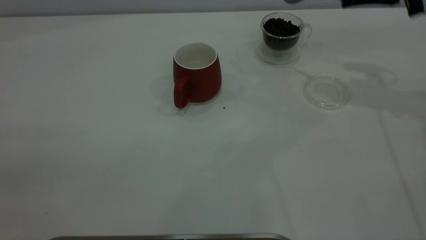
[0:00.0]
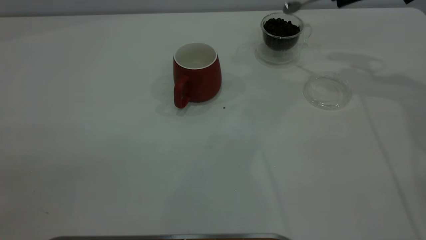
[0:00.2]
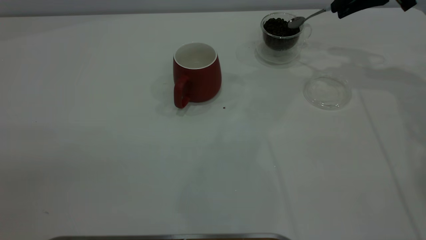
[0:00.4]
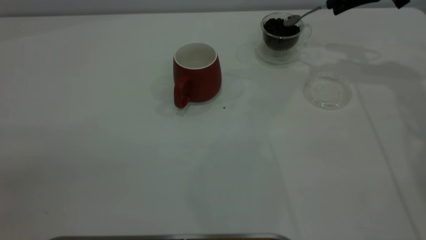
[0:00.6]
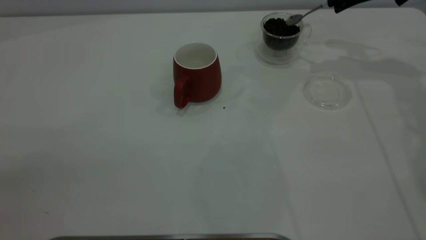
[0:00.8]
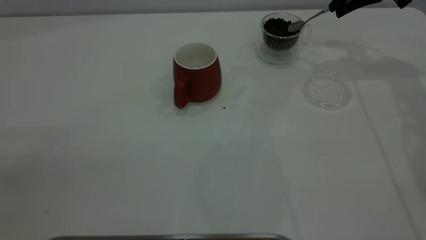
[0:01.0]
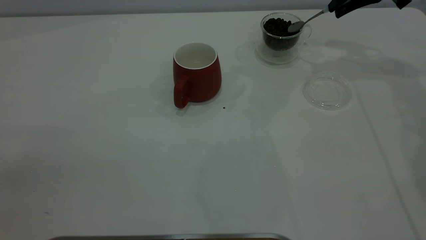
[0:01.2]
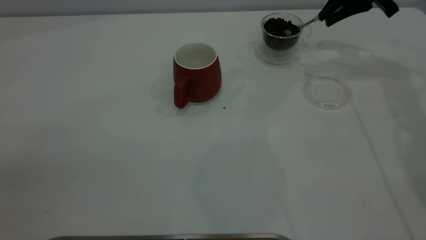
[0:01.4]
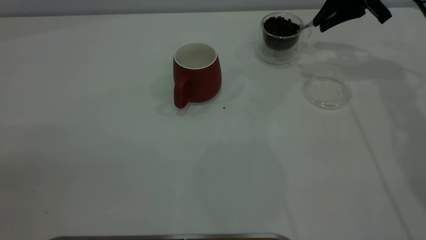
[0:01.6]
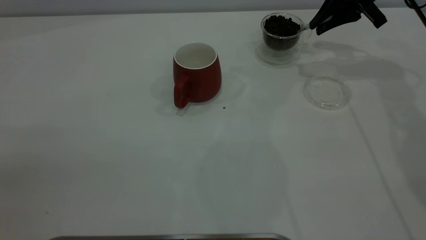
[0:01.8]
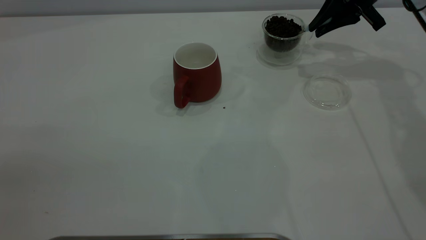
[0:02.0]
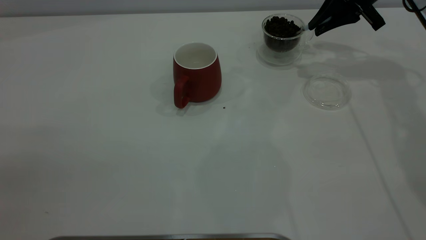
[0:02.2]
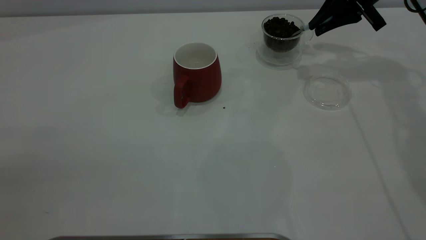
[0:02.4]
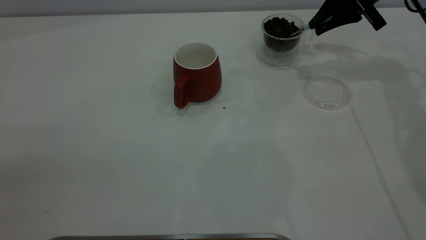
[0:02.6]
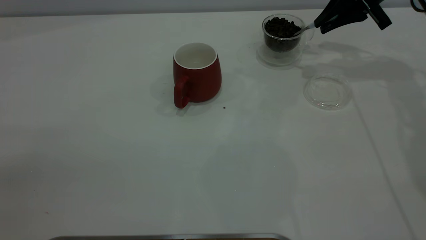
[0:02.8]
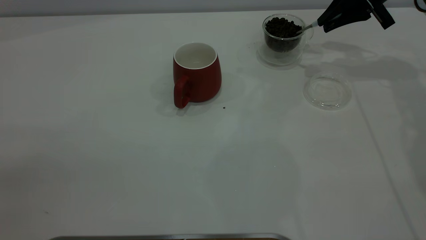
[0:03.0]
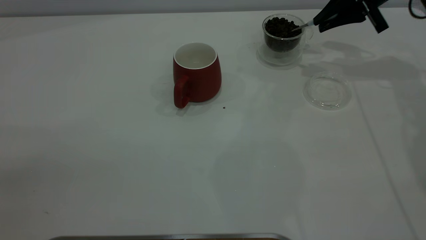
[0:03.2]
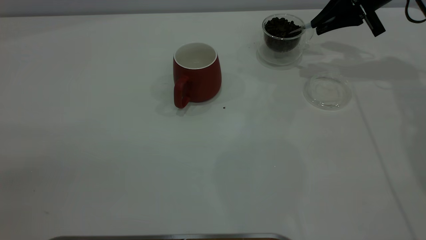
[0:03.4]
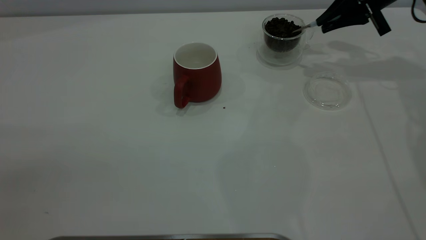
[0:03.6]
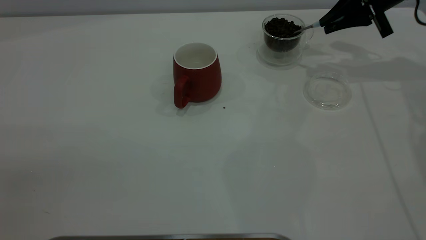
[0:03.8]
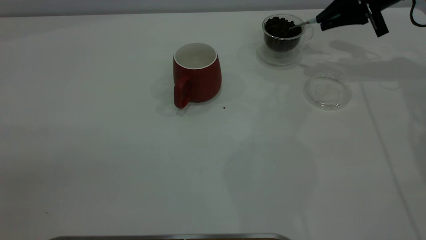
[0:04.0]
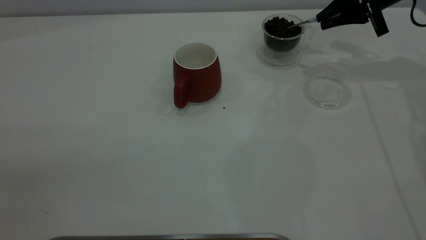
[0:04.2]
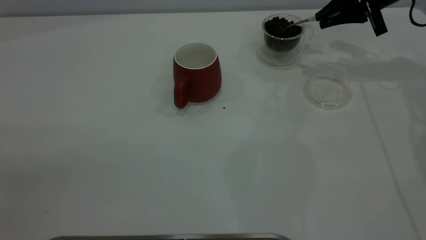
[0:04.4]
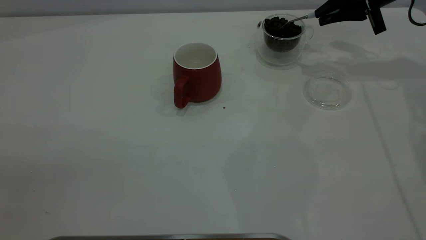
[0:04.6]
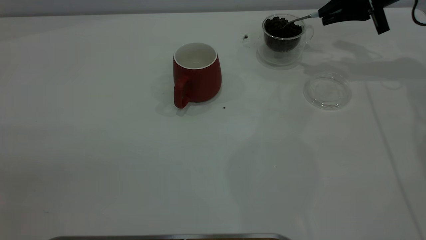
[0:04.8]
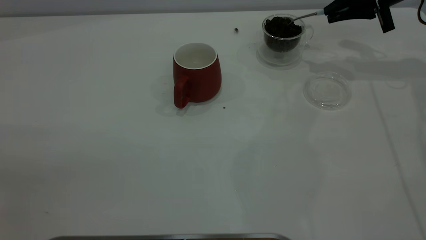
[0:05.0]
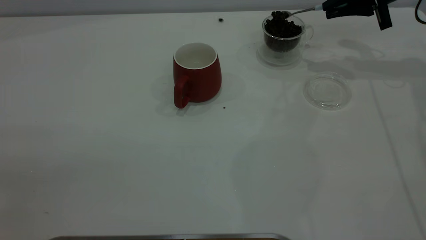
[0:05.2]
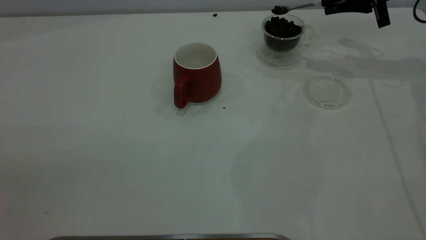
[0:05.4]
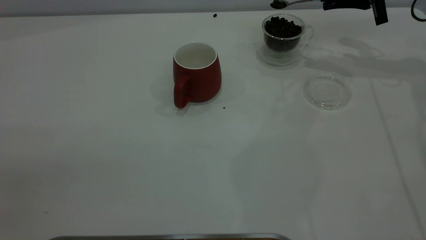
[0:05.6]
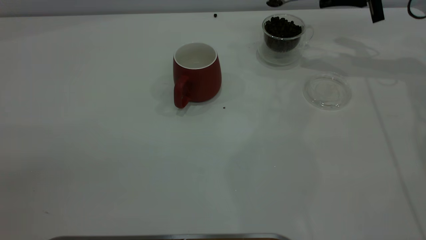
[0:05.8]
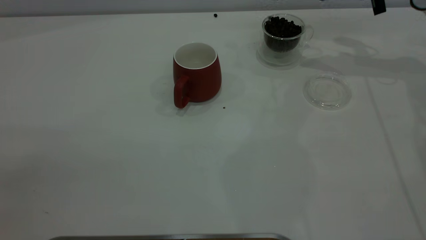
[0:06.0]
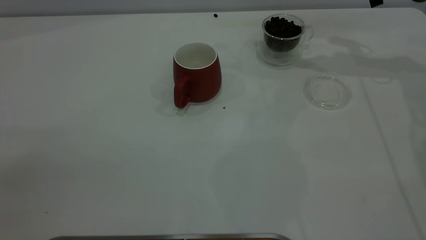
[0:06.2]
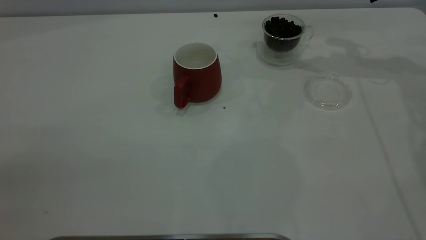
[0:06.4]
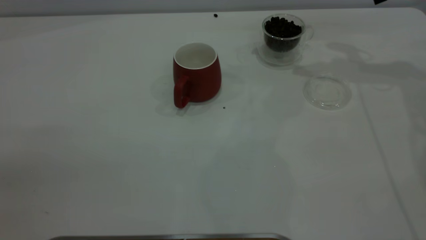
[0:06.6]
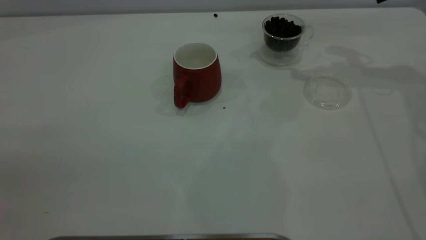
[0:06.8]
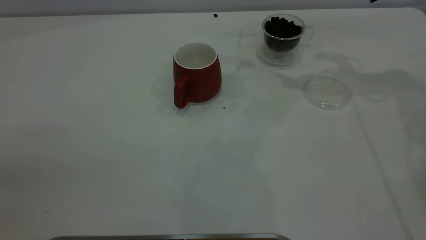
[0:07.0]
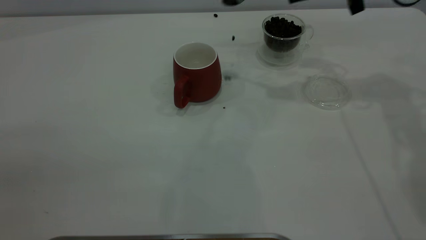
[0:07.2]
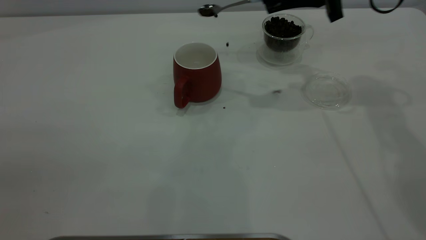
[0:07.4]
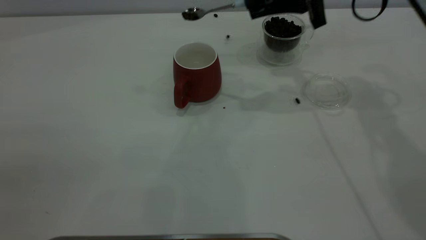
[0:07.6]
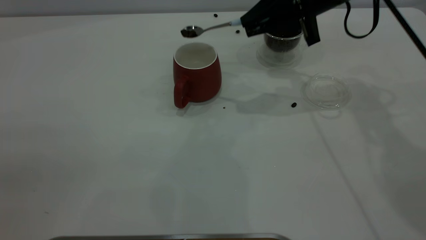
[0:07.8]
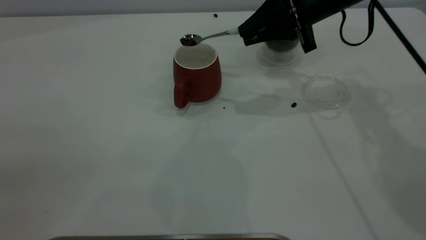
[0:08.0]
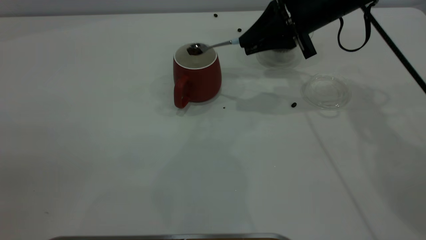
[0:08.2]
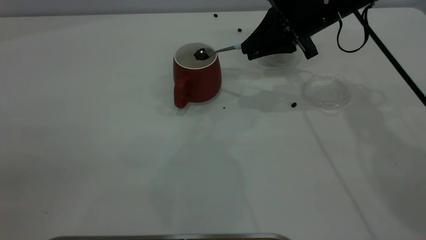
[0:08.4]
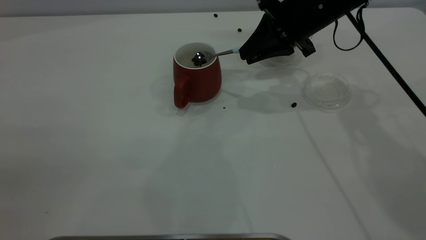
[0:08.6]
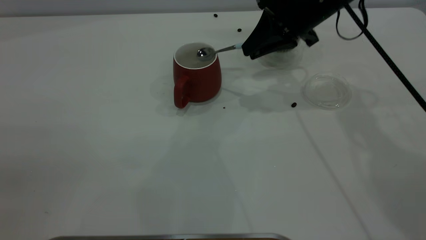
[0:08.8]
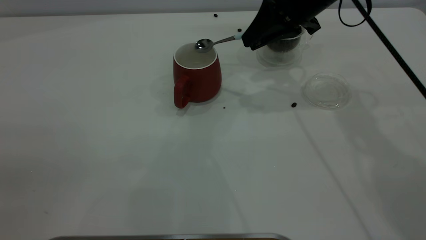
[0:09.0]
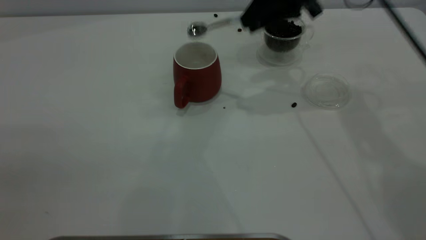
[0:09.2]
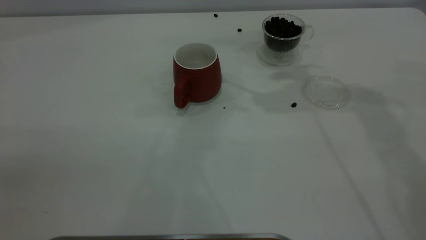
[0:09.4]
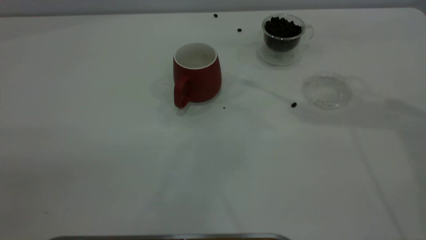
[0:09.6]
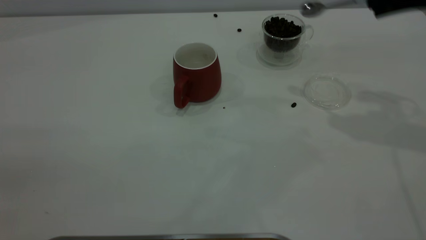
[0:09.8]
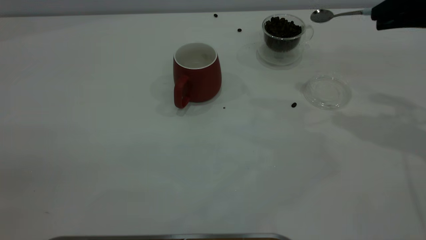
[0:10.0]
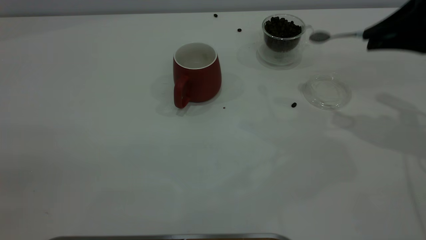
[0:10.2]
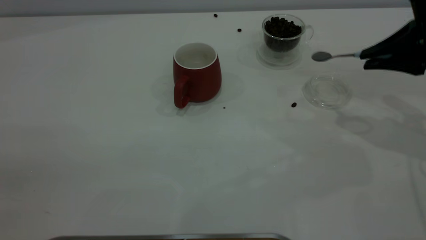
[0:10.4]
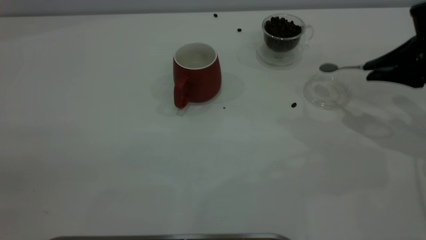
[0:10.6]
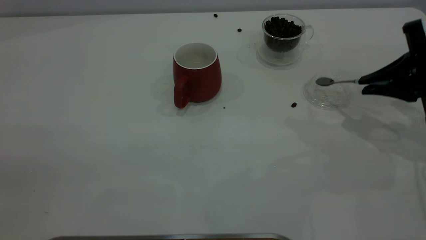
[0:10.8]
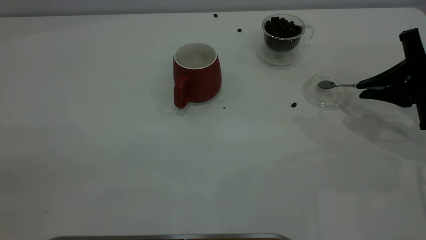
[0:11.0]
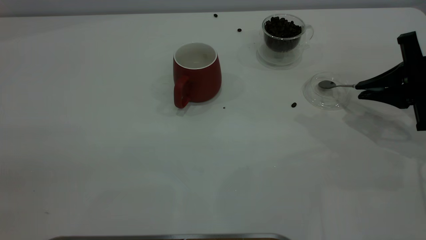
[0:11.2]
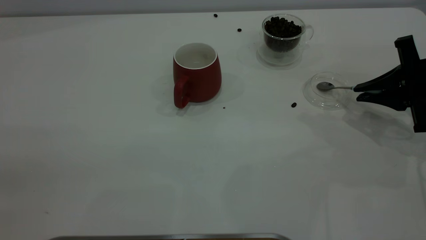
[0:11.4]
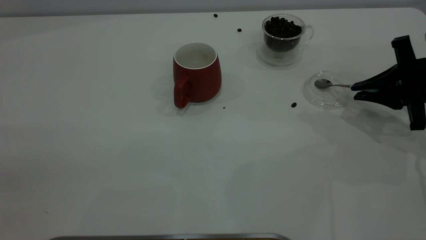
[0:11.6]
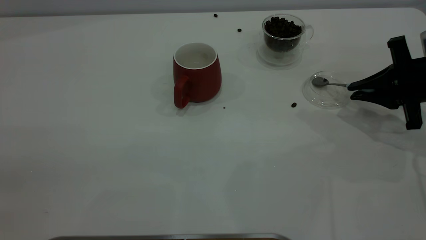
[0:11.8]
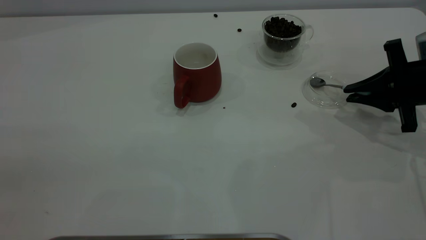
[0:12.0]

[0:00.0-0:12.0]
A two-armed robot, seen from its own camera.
Task of the whole recording: the left gripper place the red cup in the center of the table, the right gripper take the blue spoon from the cup lid and scoop out the coffee beans from the coffee cup and put them into the red cup, the right gripper put the spoon back into the cup lid.
Step, 0:00.0 to 0:09.0: Scoop a spoonful of beans into the cup.
0:00.0 to 0:01.6: The right gripper goes some 10 cm forward.
0:01.6 to 0:04.4: There are only small adjustments of the grippers.
0:04.4 to 0:06.0: The grippers make only small movements.
0:06.0 to 0:07.6: The right gripper moves to the left and backward, roughly 15 cm.
0:09.0 to 0:10.4: The right gripper goes some 20 cm to the right and backward.
0:10.4 to 0:12.0: The right gripper heads downward, covering approximately 10 cm.

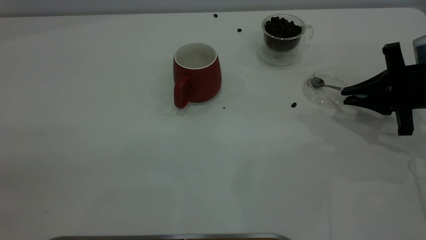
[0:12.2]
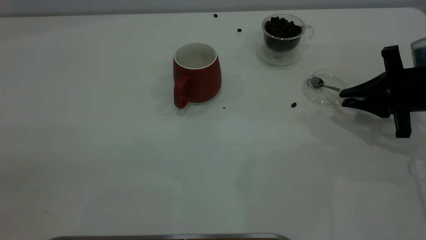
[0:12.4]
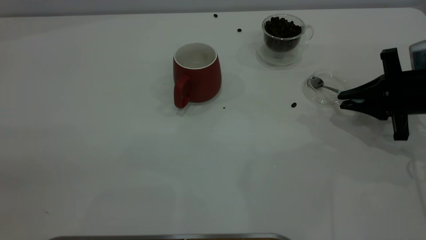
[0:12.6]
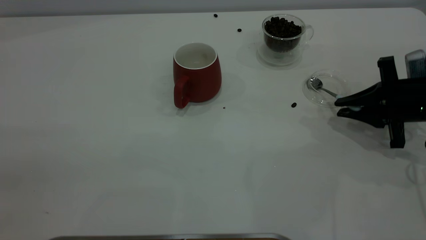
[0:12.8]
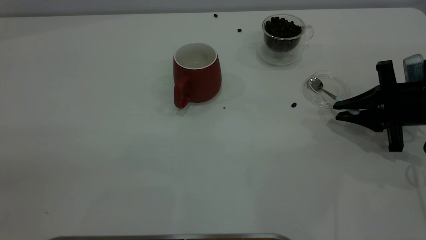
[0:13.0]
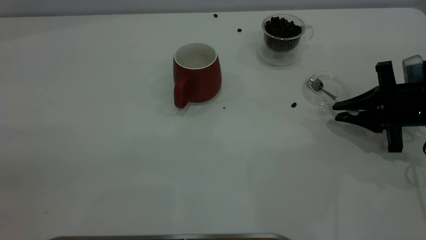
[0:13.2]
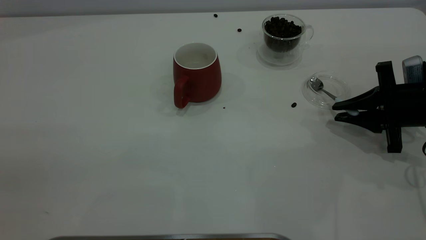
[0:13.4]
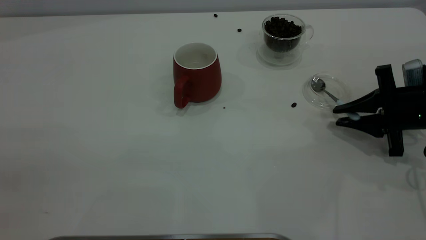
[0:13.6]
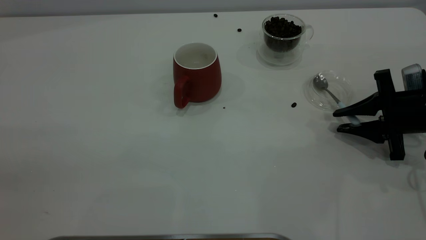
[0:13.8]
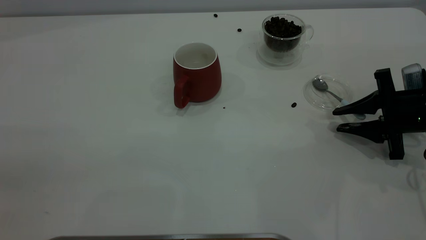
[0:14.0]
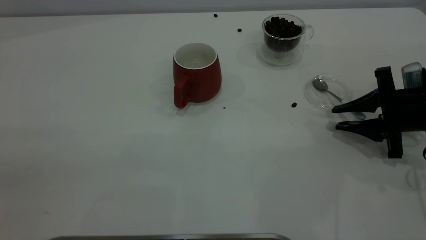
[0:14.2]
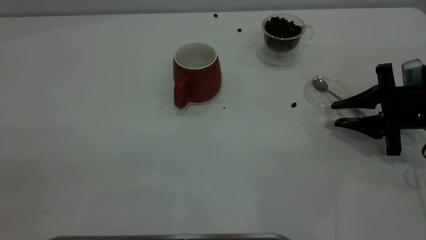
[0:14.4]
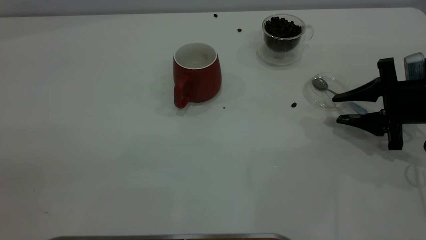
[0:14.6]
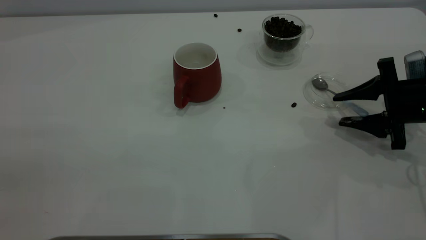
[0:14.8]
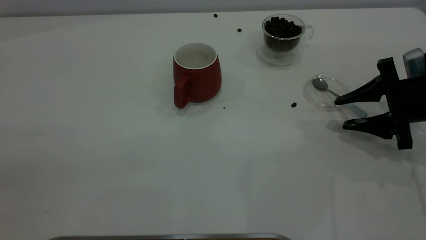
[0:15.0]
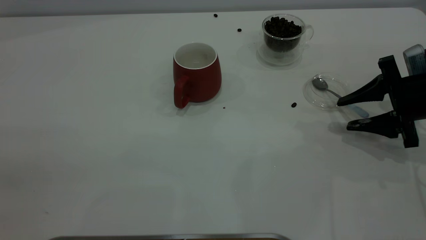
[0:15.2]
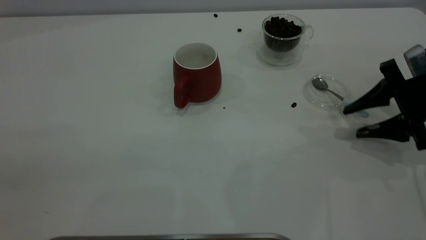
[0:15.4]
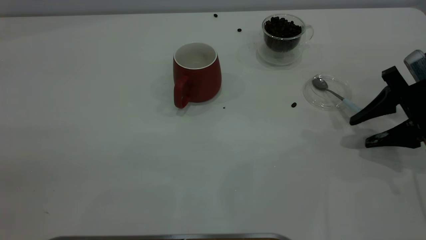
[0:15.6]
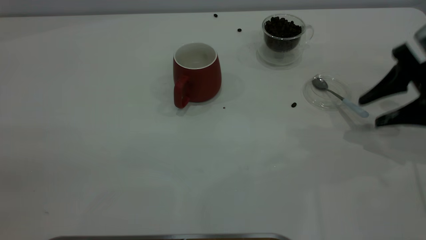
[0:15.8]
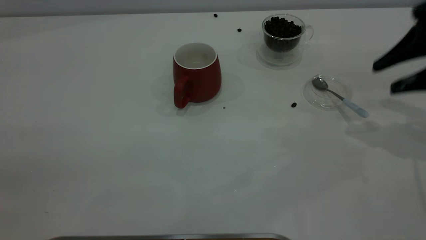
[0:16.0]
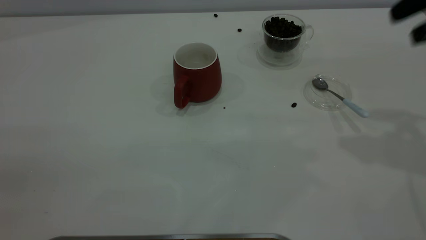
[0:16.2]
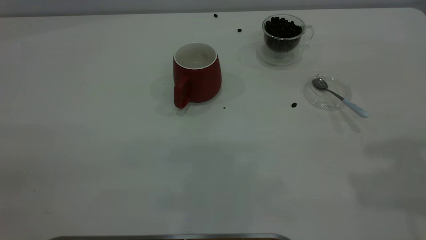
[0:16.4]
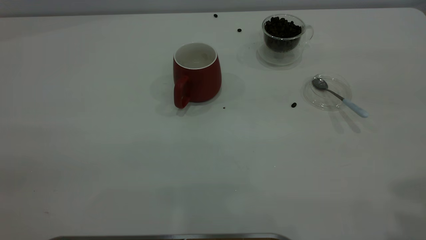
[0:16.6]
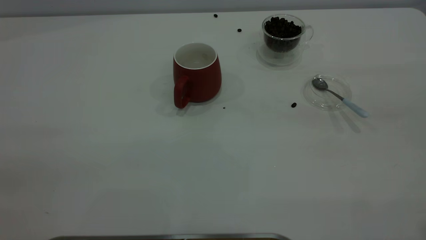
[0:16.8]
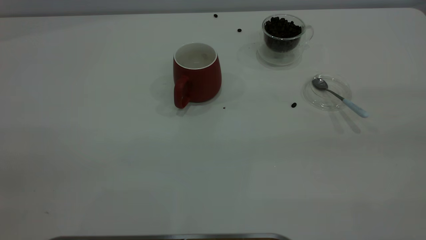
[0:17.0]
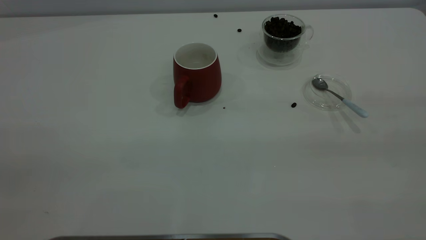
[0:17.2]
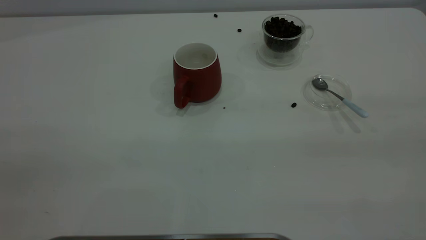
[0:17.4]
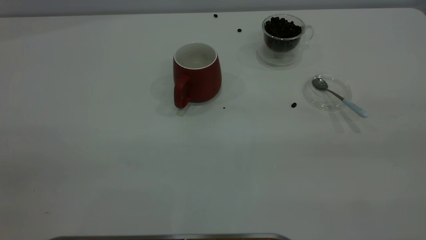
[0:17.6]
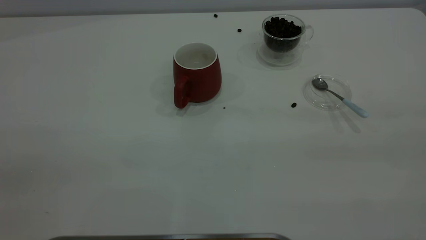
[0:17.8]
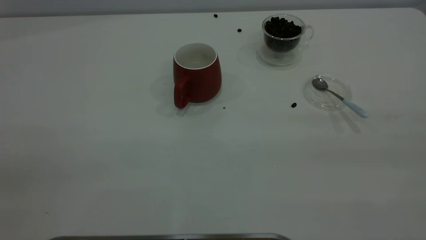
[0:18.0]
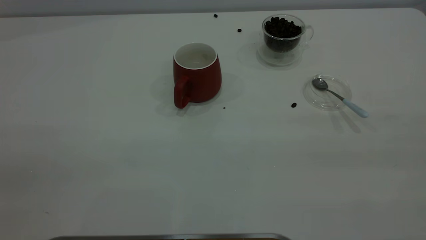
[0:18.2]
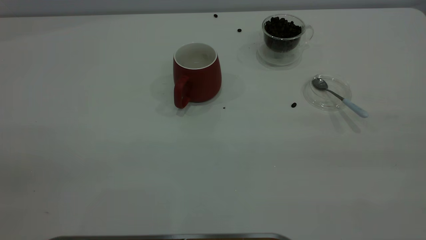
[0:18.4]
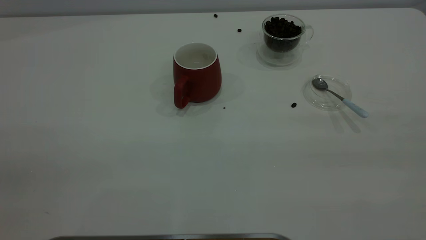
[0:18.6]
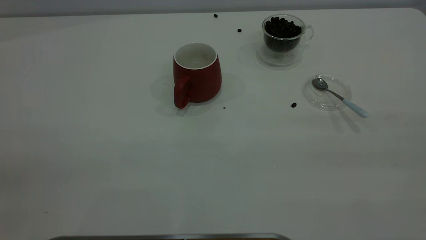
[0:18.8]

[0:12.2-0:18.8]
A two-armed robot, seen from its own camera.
Task of the whole recording: the left gripper place the red cup in the center of the table, the right gripper take the blue spoon from the cup lid and scoop out the coffee beans from the coffee cup and put them into the red cup, the right gripper put the spoon back into the cup lid.
Step, 0:12.2 to 0:15.6: Place the spoon back in its original place.
0:12.2 to 0:13.8: The right gripper opens.
0:13.8 to 0:15.4: The right gripper opens.
0:15.4 to 0:17.2: The right gripper is displaced upward and backward by about 40 cm.
